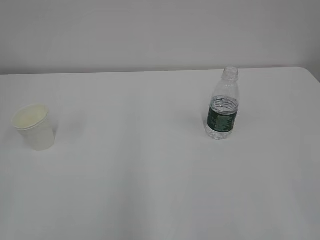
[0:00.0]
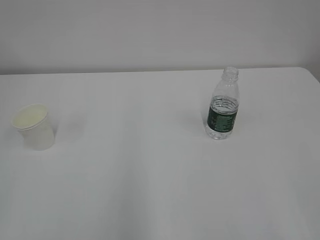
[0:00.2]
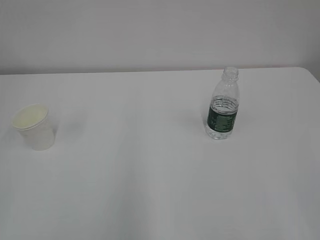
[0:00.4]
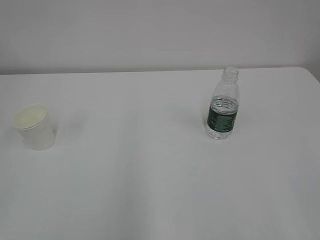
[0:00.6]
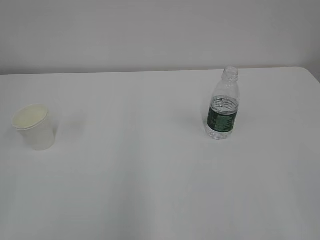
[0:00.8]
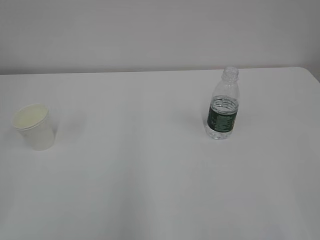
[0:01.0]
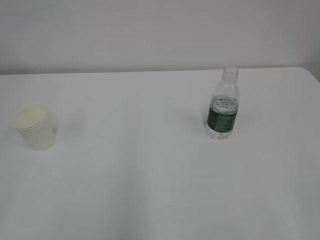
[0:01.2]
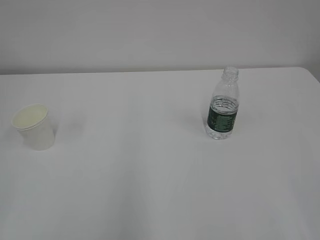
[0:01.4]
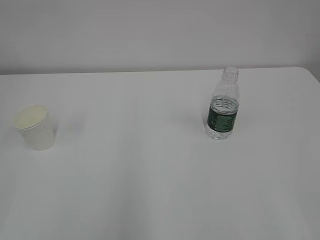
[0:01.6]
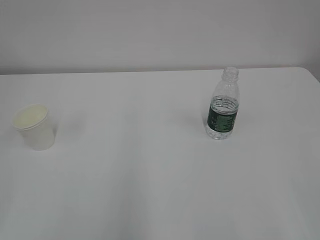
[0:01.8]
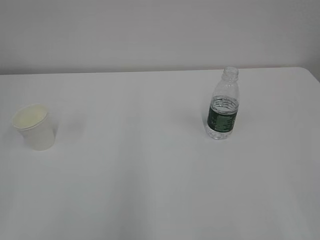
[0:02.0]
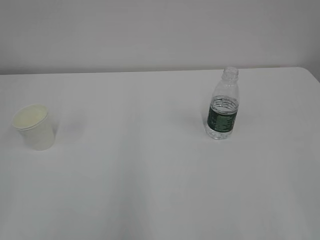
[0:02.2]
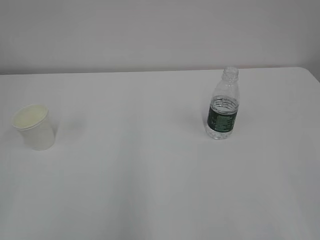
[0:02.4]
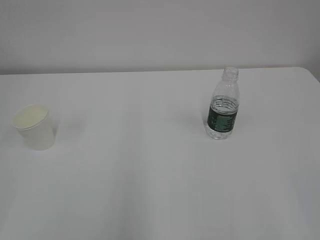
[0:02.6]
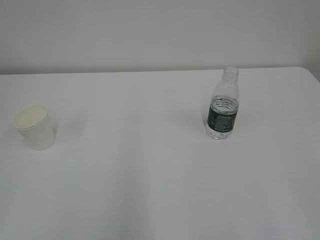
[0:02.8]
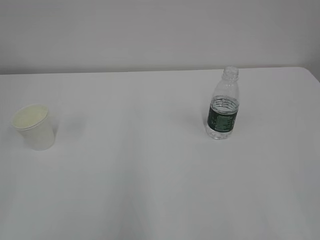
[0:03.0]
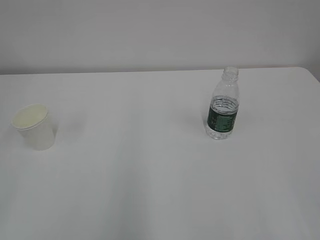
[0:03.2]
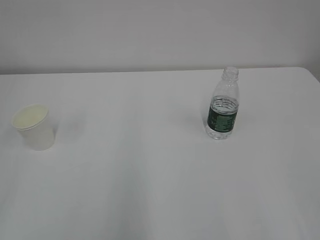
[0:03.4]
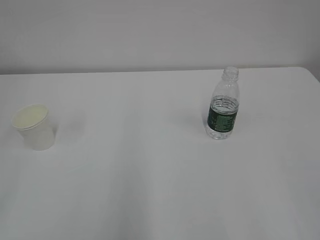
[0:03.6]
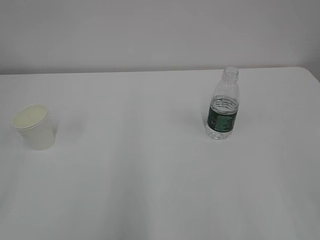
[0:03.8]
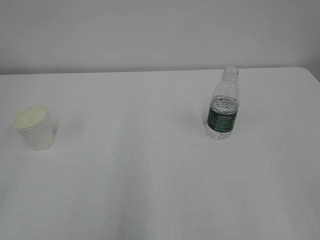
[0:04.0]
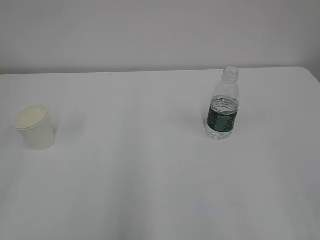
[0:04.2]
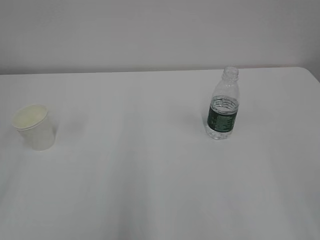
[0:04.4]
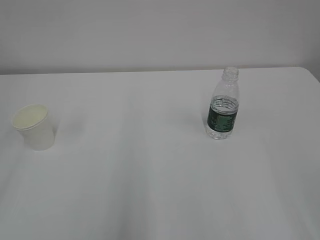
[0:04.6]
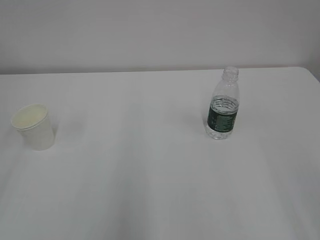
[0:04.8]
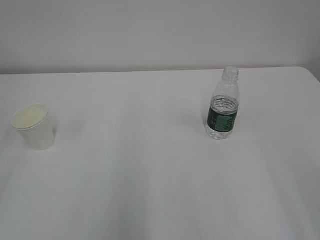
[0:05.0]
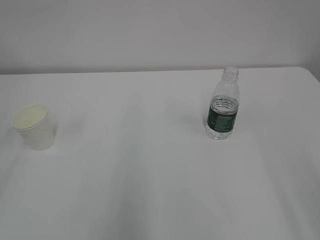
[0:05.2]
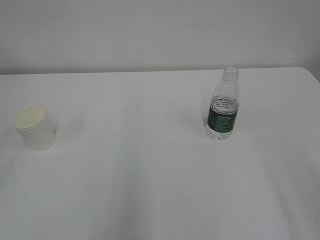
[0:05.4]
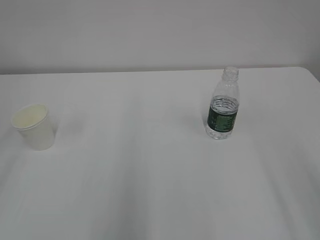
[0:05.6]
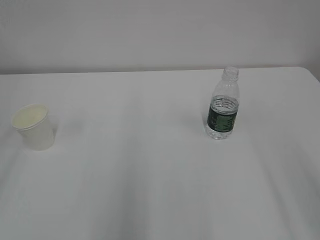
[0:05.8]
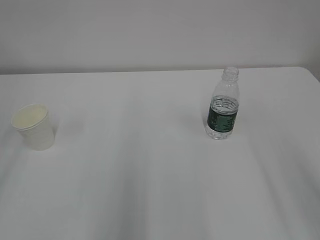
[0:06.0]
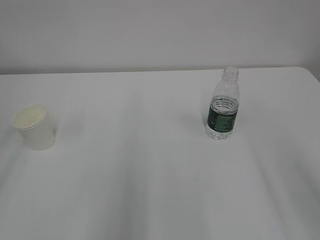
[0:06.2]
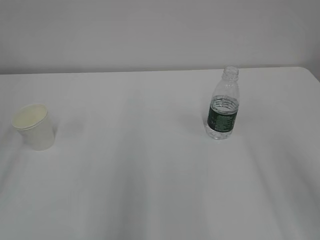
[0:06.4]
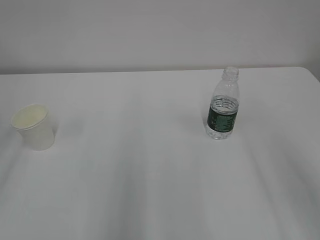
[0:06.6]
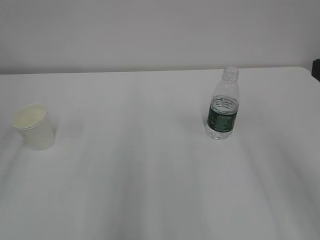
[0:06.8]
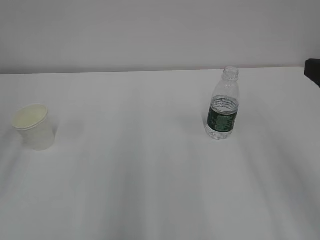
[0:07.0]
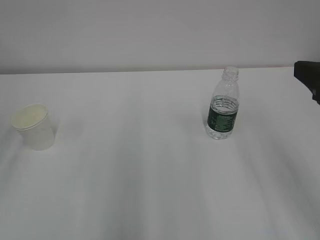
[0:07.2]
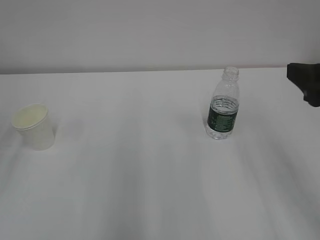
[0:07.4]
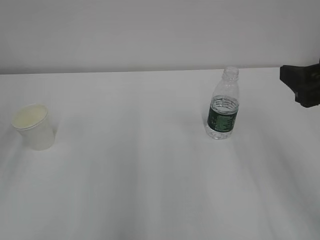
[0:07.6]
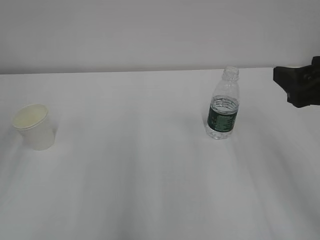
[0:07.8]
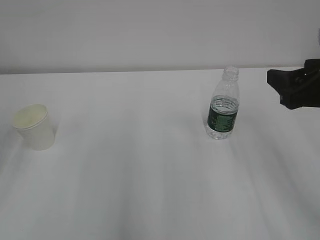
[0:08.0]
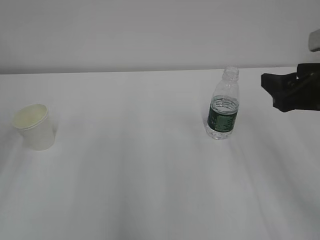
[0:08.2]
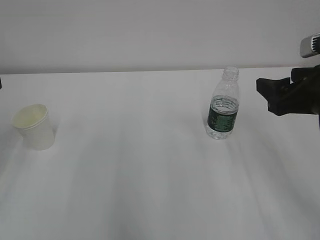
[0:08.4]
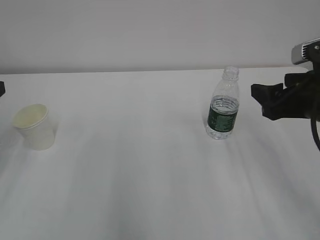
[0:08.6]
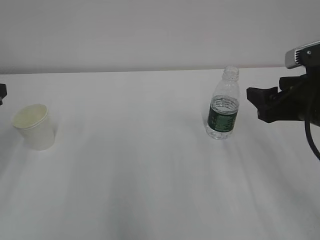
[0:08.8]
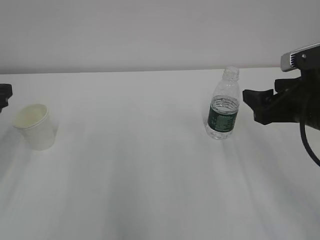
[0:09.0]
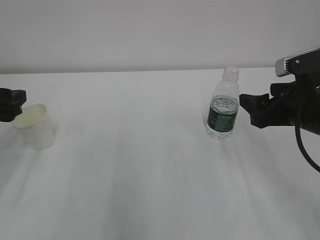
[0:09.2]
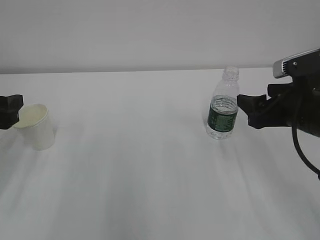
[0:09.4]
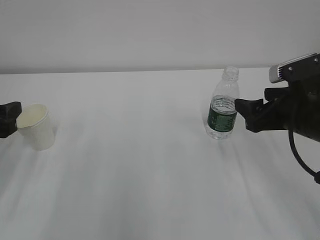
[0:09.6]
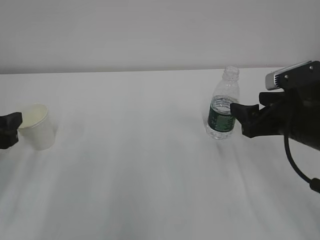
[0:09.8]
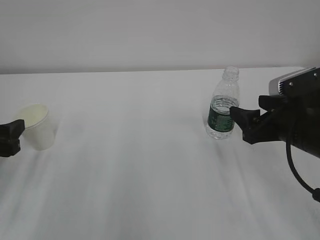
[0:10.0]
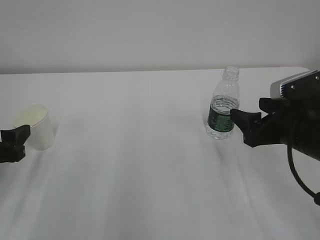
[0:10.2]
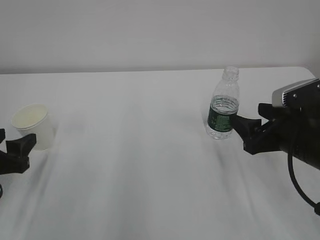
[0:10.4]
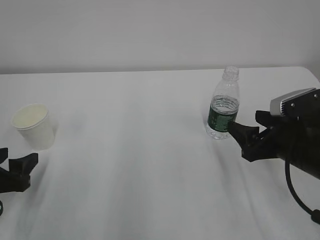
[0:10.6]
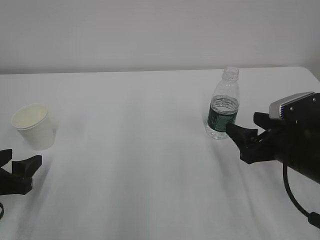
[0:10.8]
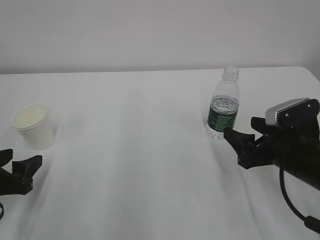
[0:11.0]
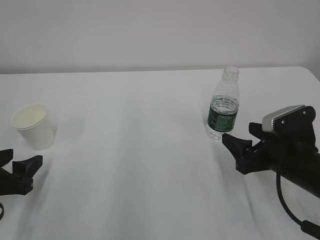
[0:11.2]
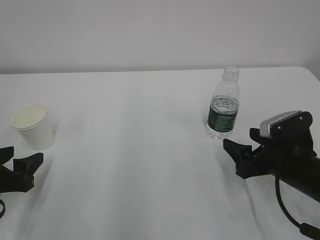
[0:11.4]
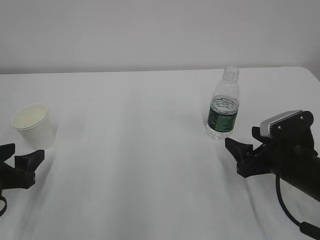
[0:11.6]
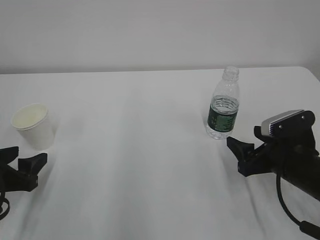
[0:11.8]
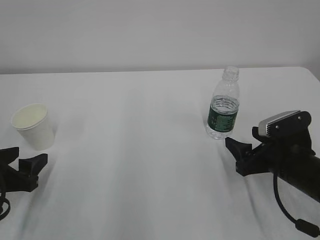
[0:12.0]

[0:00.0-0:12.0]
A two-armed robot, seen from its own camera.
0:01.6 to 0:03.0: The two grippers keep their place.
0:06.0 to 0:07.6: The right gripper is displaced forward by some 10 cm.
0:07.6 to 0:09.0: The right gripper moves downward, roughly 5 cm.
0:09.0 to 0:10.4: The right gripper heads downward, covering about 5 cm. Meanwhile the left gripper moves downward, some 10 cm.
0:10.4 to 0:12.0: The right gripper travels downward by approximately 5 cm.

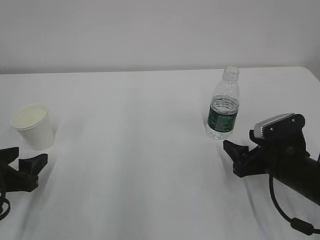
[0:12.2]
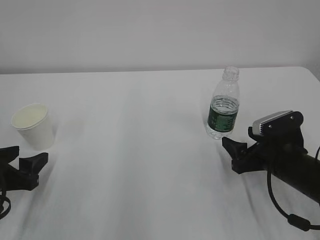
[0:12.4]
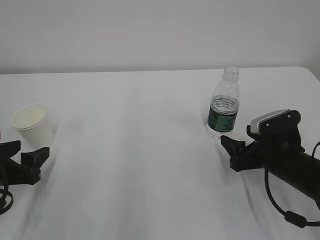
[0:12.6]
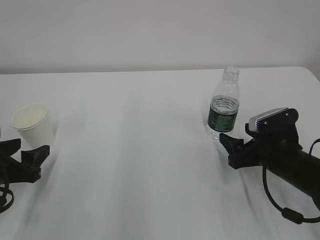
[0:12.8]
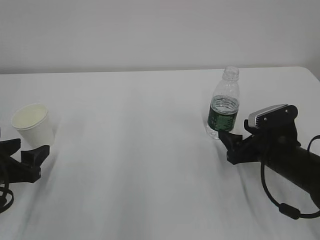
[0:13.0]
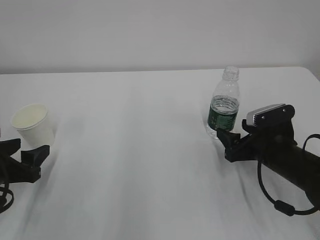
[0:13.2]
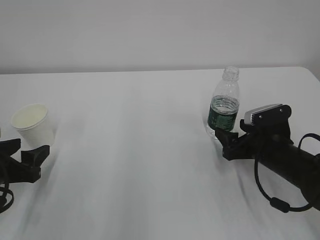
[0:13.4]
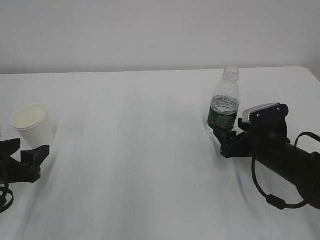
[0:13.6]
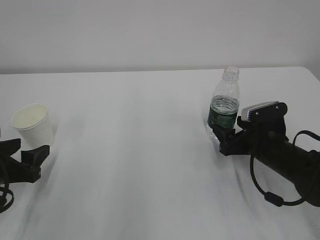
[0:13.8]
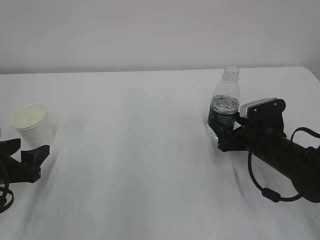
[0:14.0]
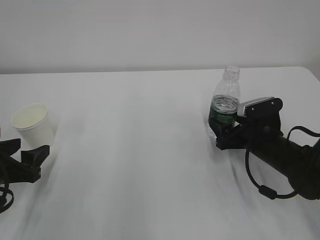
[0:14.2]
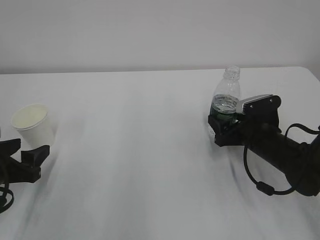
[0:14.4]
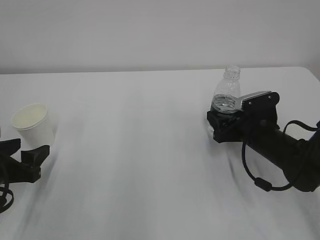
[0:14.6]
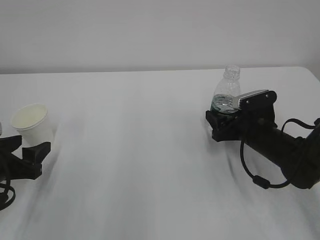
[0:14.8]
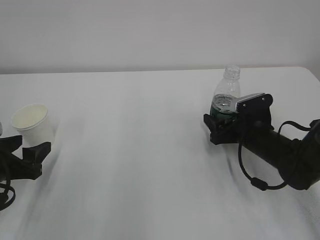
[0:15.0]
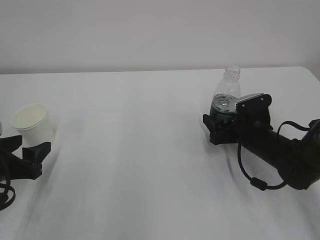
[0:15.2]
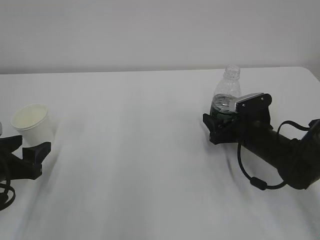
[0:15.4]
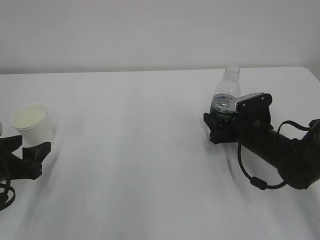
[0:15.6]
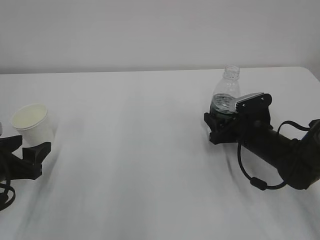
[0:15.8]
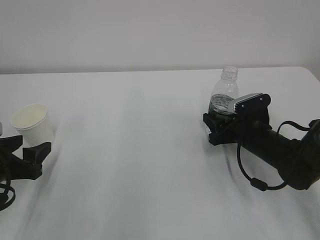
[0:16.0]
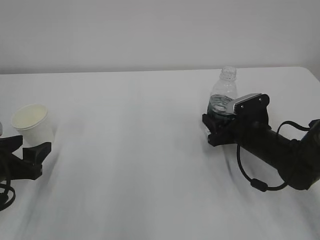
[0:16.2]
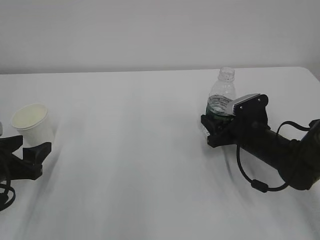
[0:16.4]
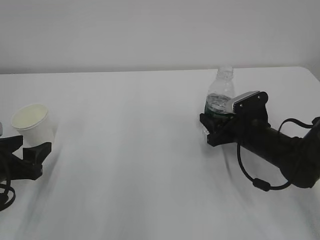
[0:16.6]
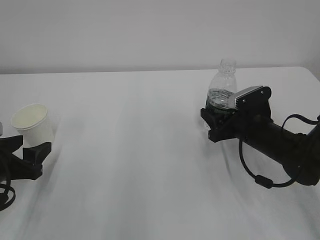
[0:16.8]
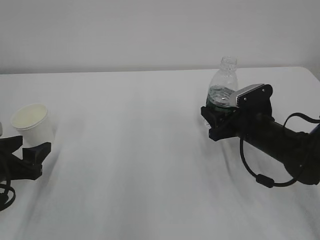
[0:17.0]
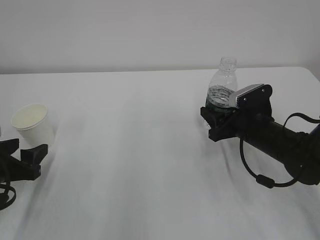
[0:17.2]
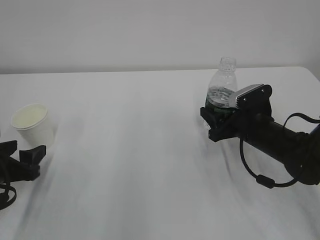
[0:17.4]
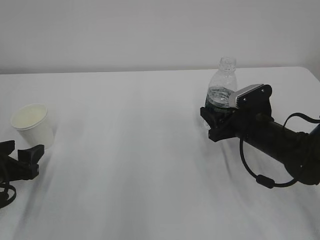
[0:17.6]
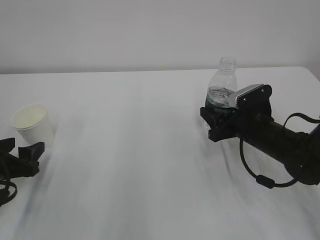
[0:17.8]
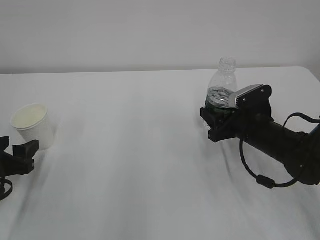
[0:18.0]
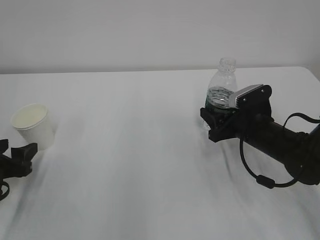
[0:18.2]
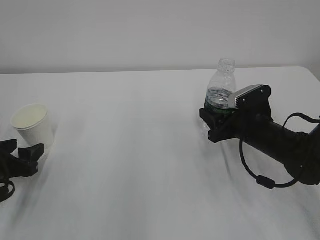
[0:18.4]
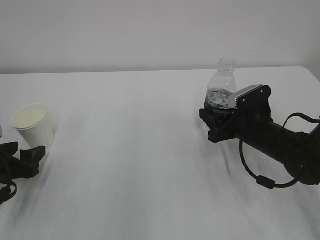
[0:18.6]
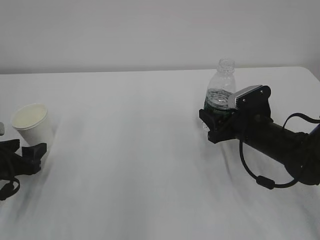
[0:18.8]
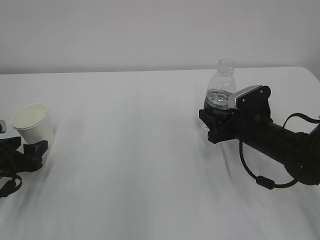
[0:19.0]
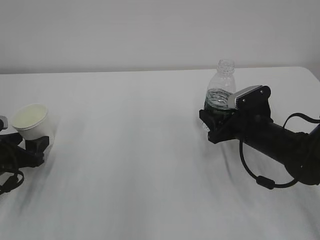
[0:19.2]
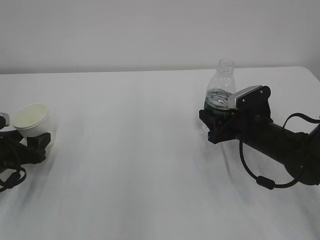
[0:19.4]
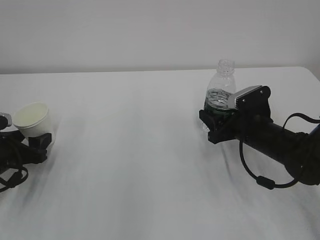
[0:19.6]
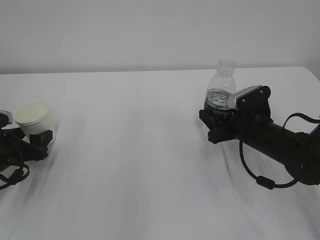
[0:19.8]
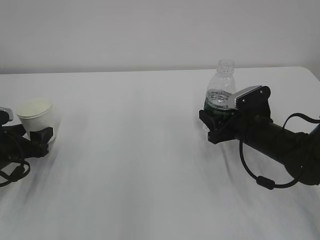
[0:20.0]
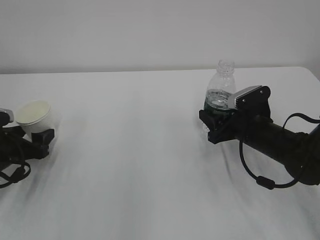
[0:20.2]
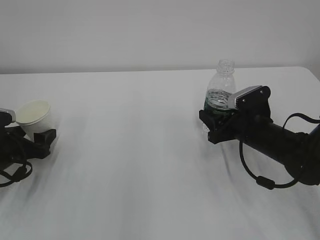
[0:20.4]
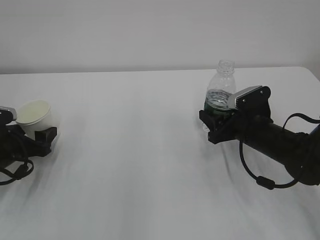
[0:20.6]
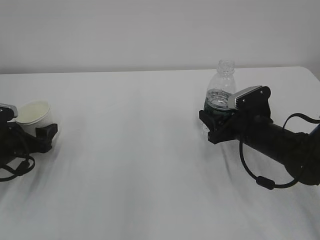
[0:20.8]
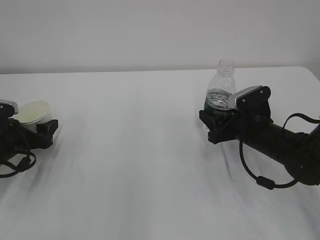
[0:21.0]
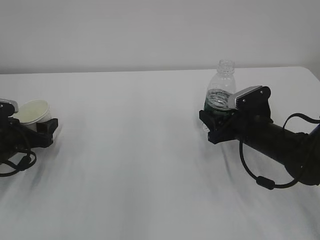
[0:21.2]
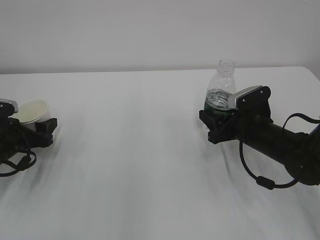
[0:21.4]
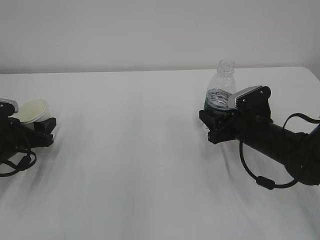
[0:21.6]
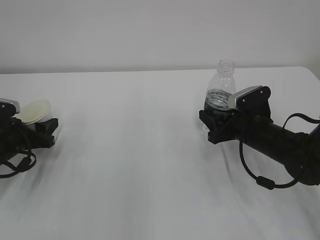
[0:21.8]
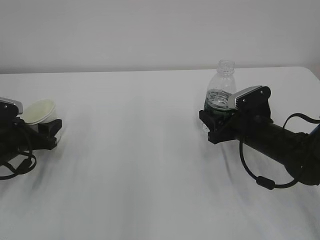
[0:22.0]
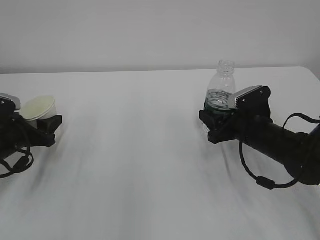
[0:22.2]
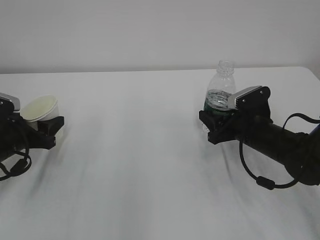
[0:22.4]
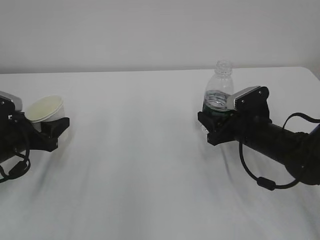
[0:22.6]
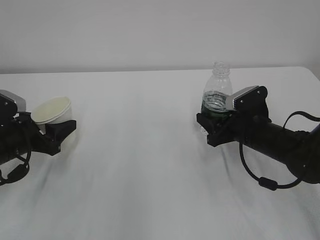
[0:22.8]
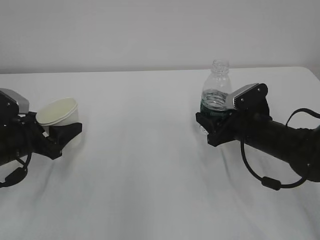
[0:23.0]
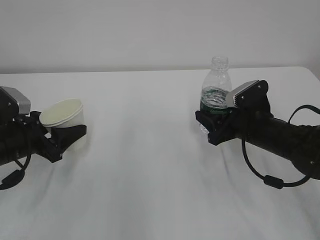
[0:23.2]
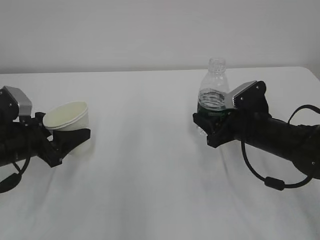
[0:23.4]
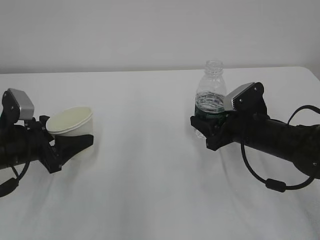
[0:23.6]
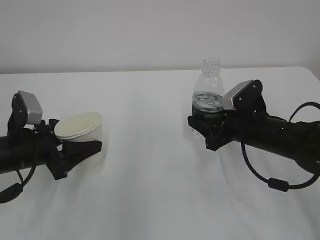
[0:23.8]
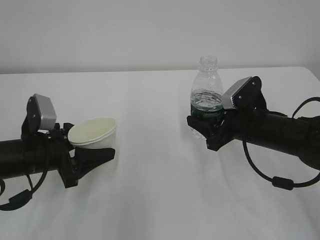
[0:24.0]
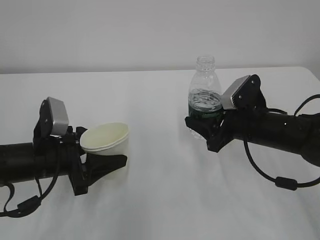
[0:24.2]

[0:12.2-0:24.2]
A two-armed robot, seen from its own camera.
0:12.2 to 0:13.8: The right gripper heads forward, covering some 5 cm.
0:13.8 to 0:15.2: The grippers make only small movements.
0:15.2 to 0:16.6: The right gripper closes up.
0:16.6 to 0:18.2: There are only small adjustments of the grippers.
0:18.2 to 0:19.8: The left gripper is displaced forward by roughly 5 cm.
0:19.8 to 0:21.2: There are only small adjustments of the grippers.
0:21.2 to 0:22.6: The left gripper closes its fingers.
0:22.6 to 0:24.2: The right gripper shifts by approximately 5 cm. Meanwhile the left gripper heads to the right, covering roughly 10 cm.
